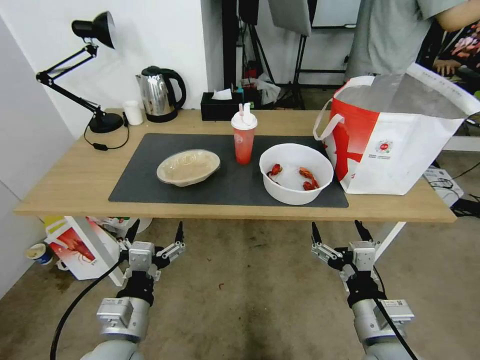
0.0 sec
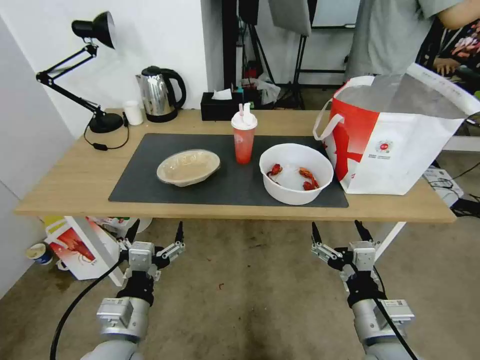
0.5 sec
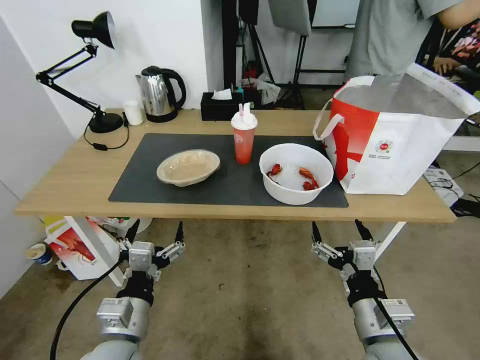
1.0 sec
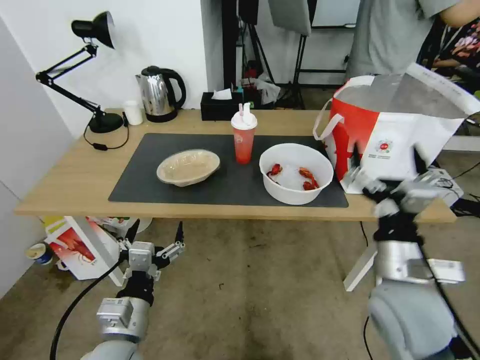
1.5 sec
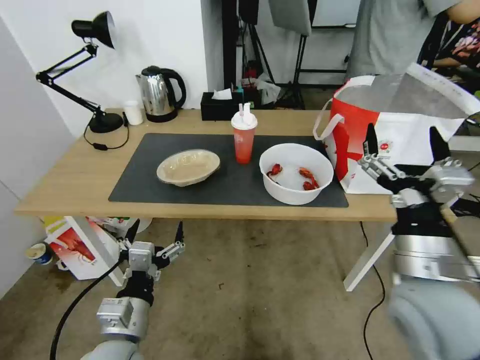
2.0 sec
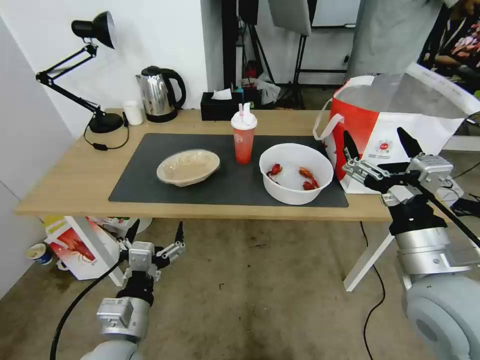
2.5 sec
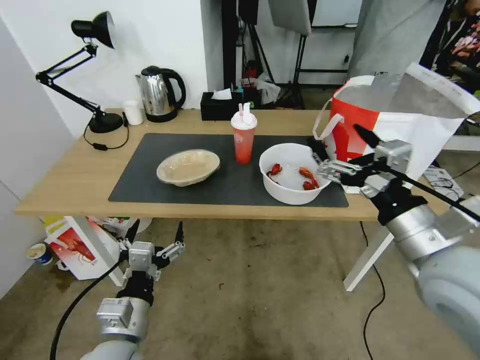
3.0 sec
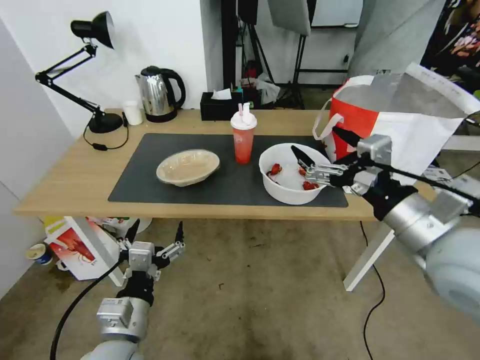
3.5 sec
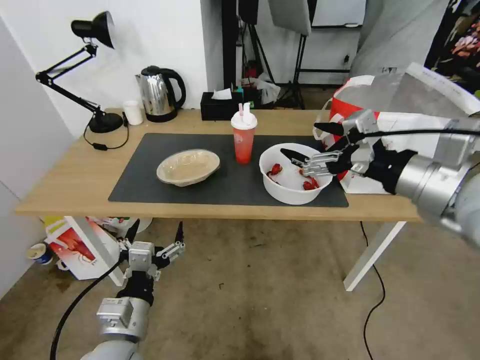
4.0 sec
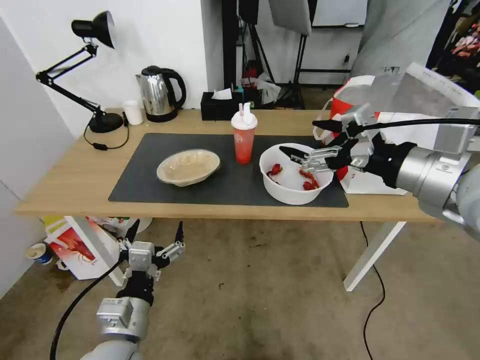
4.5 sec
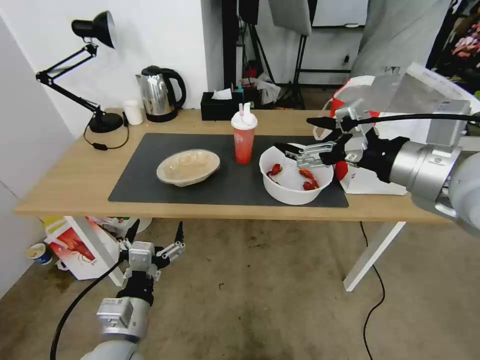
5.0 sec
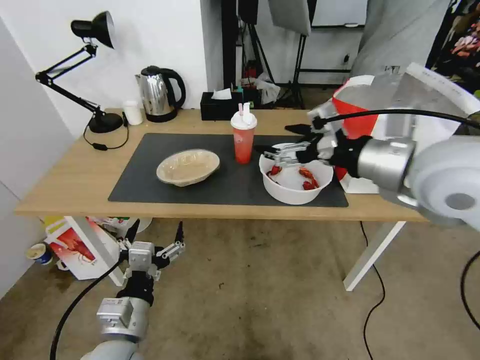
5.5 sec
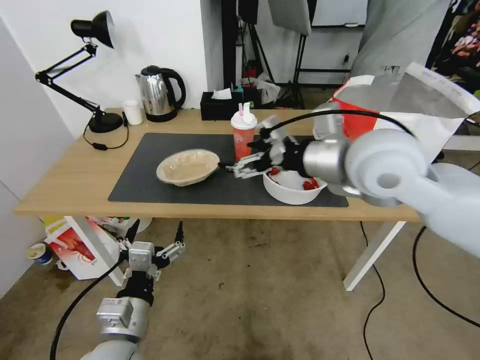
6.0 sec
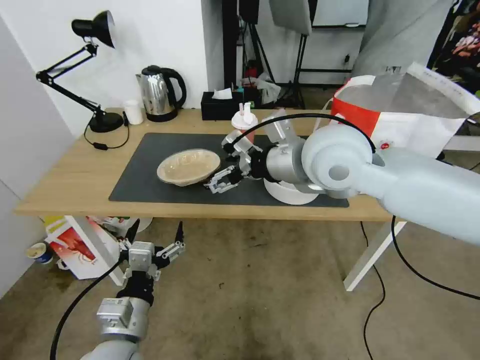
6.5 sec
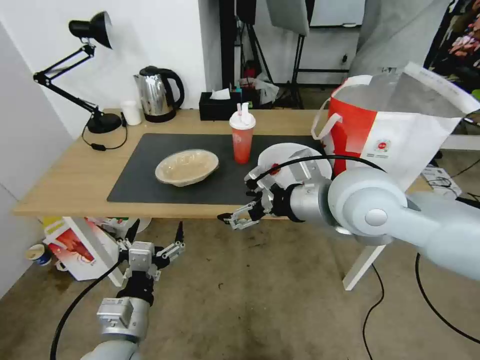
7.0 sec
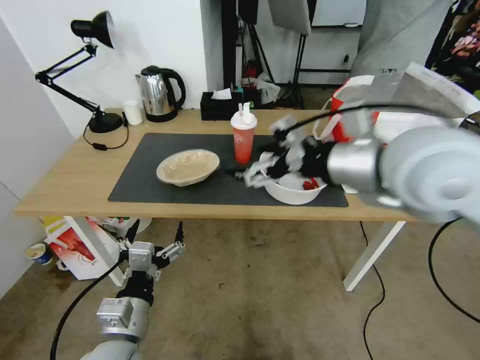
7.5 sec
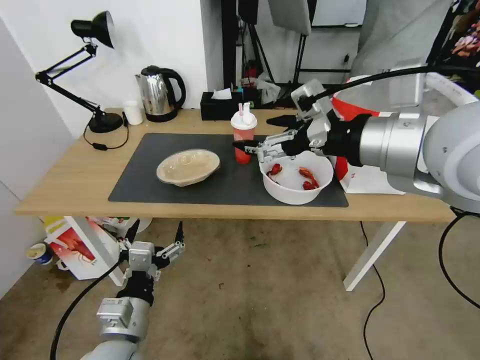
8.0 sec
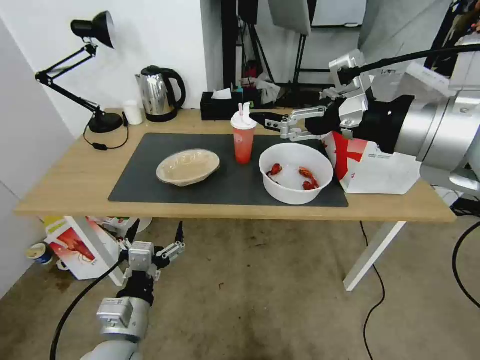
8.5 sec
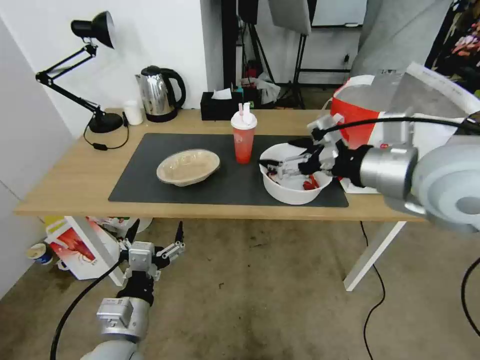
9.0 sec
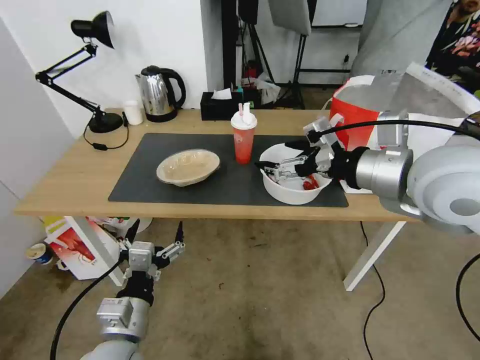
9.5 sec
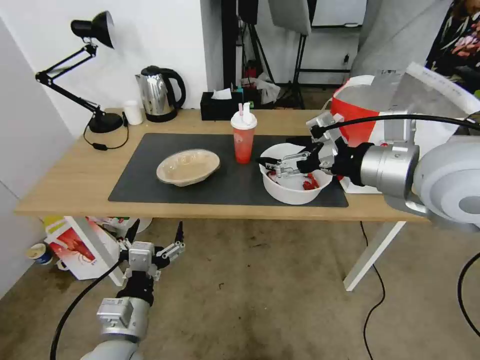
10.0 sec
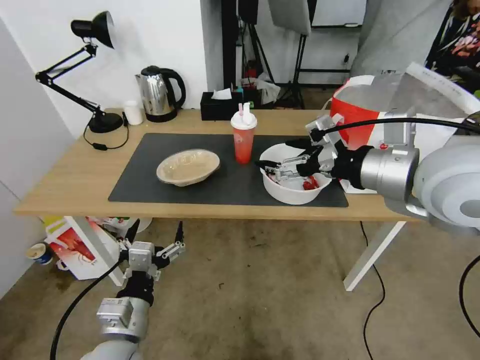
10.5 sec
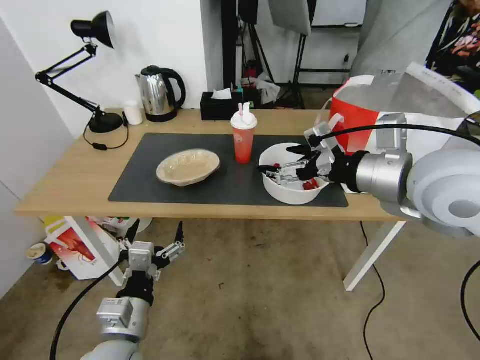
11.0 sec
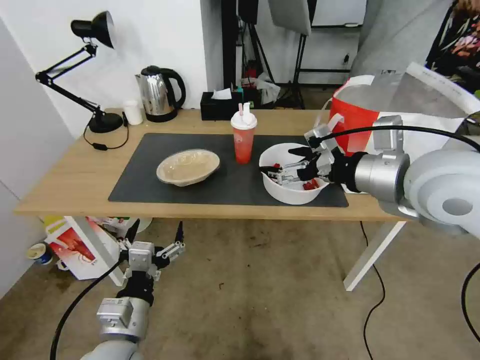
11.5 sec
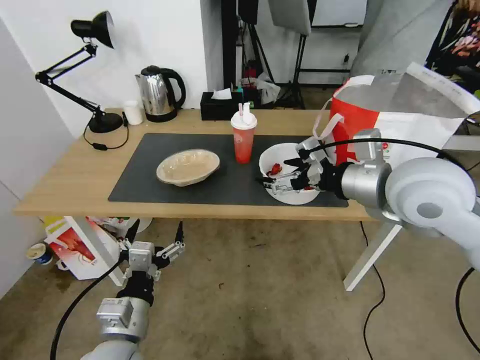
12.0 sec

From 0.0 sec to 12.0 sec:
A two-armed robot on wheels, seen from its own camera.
Task of the whole recording: Pick up the trash from the table and place it into the takeout bag.
From 2.0 sec to 4.0 sec: The right gripper heads upward and forward, covering approximately 15 cm.
From 4.0 sec to 6.0 sec: The right gripper is displaced to the left and forward by approximately 15 cm.
From 6.0 sec to 8.0 sec: The right gripper goes about 10 cm upward and backward.
From 8.0 sec to 10.0 sec: The right gripper shifts about 5 cm downward.
From 10.0 sec to 12.0 sec: The right gripper moves roughly 5 cm.

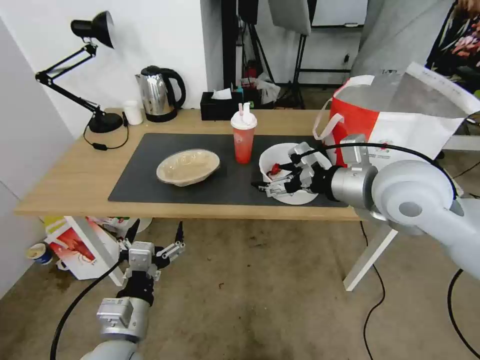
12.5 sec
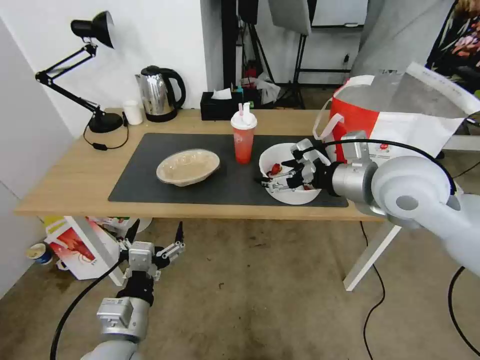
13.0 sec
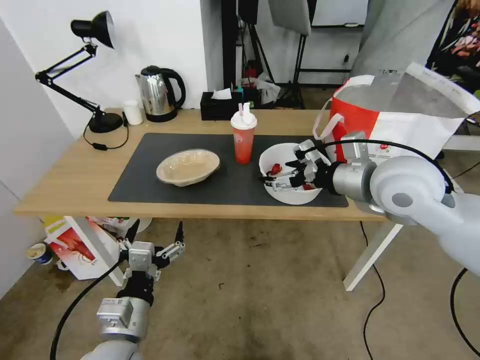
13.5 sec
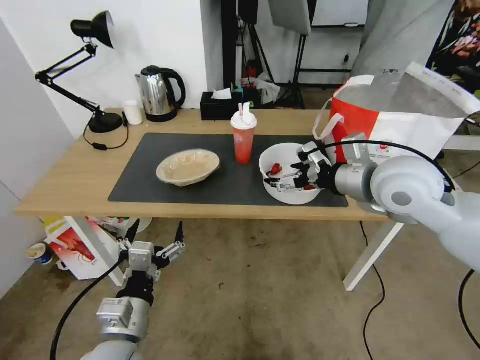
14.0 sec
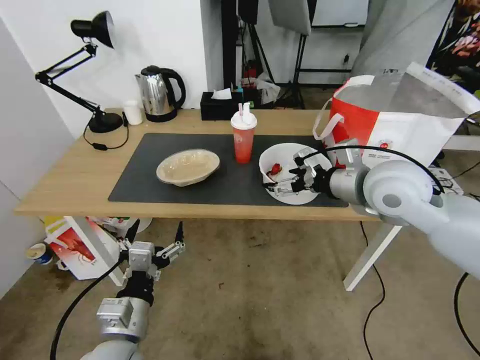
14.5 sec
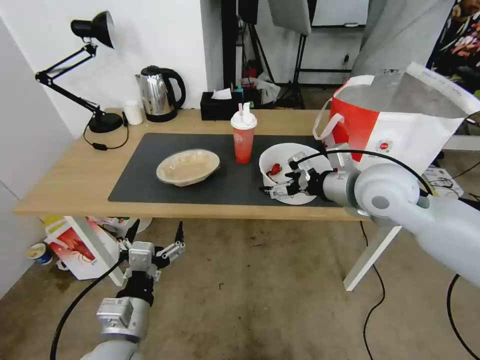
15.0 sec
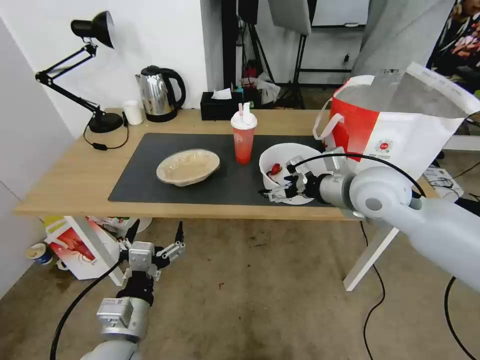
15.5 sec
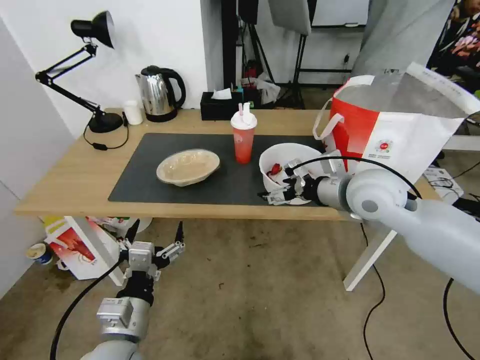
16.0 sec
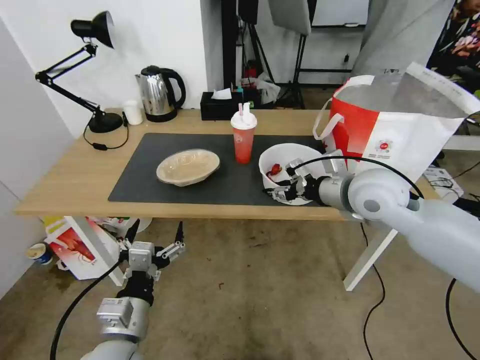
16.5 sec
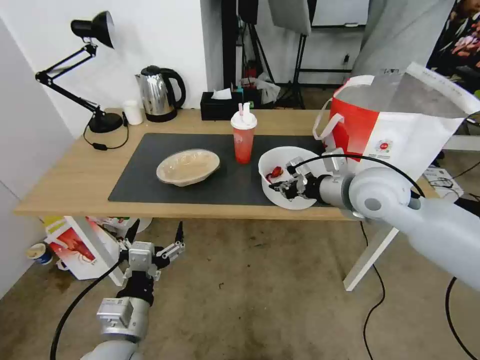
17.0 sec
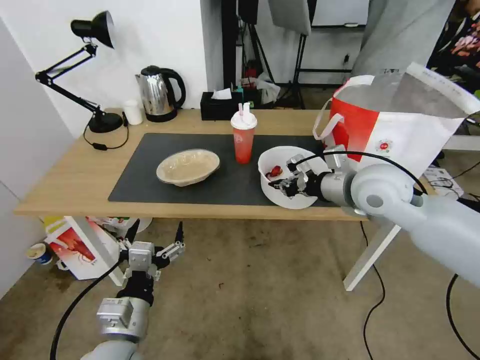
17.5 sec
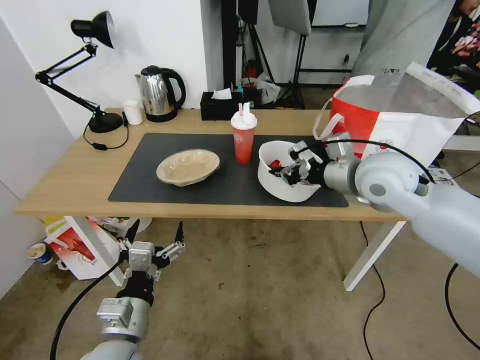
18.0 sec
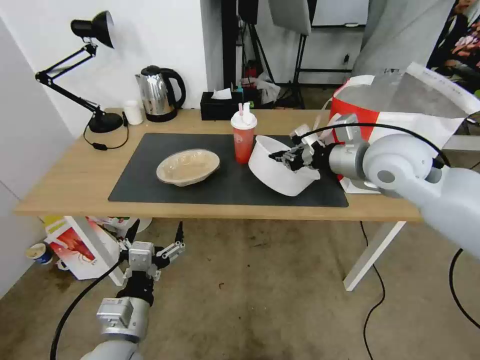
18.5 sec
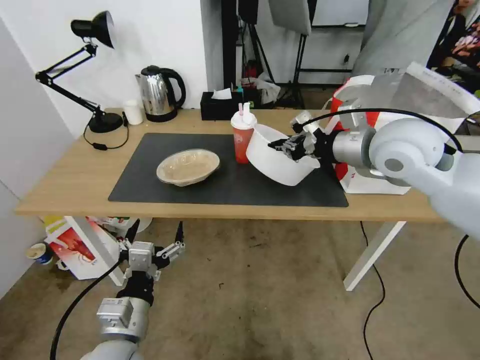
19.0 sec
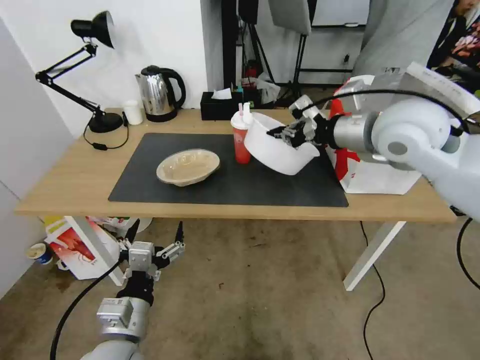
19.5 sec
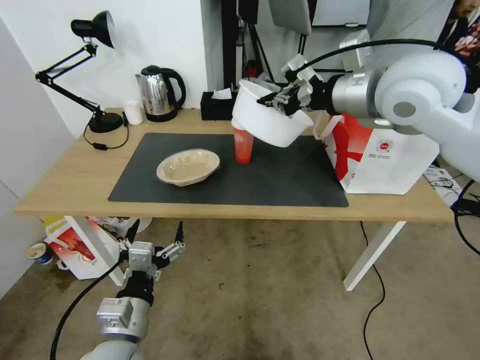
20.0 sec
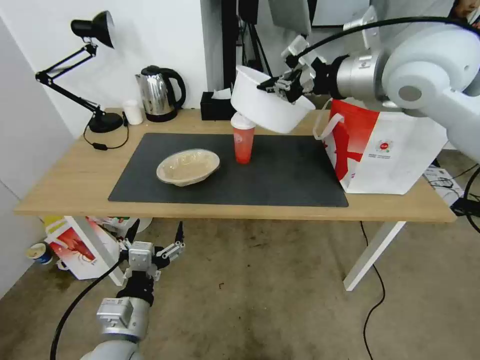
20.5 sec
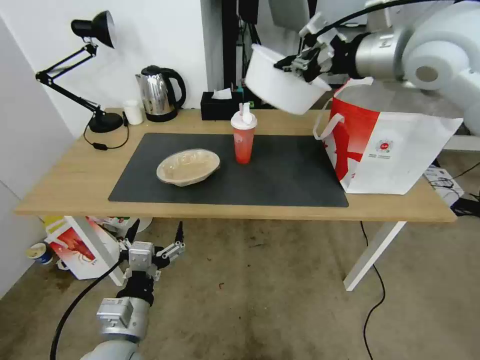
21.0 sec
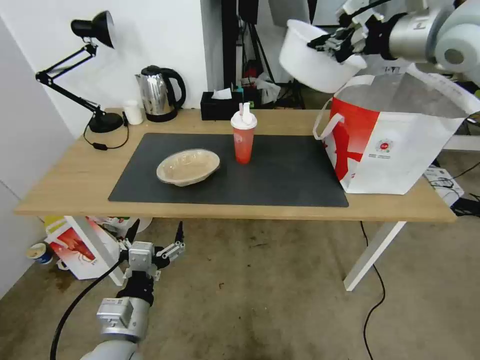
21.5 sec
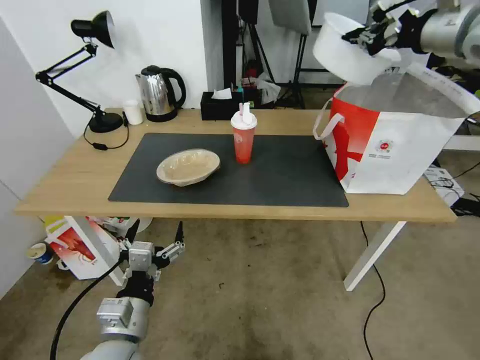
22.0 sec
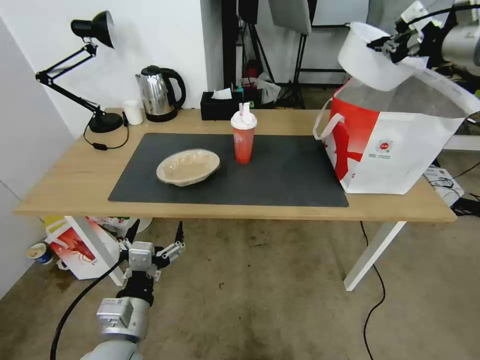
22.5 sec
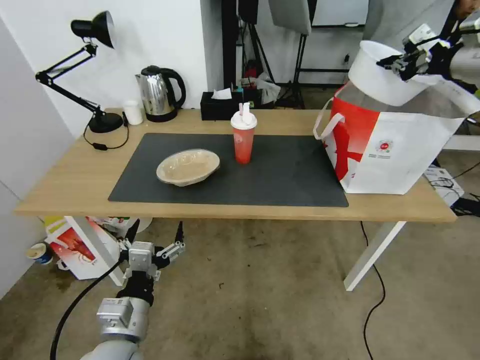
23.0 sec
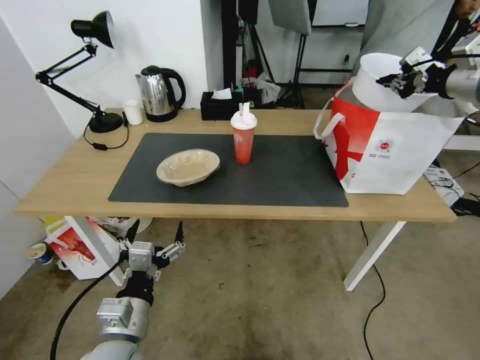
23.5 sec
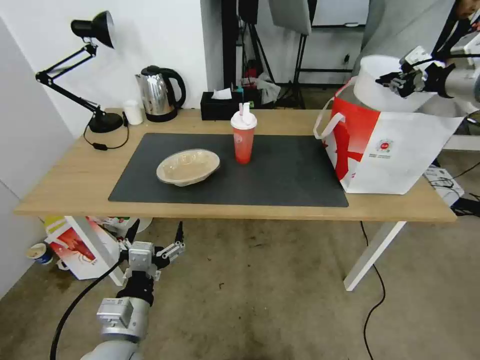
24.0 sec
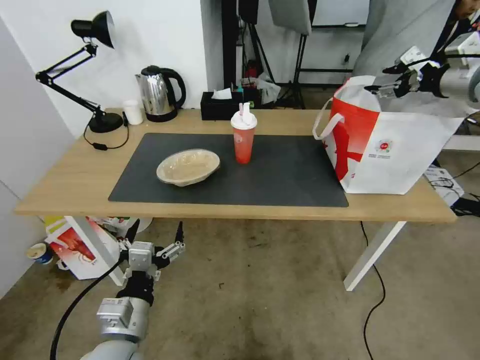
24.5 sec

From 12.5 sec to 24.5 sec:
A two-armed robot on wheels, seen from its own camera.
Task of the whole recording: Pick up the trash from the table and place it into the takeout bag.
From 12.5 sec to 14.5 sec: There are only small adjustments of the grippers.
From 14.5 sec to 16.5 sec: The right gripper closes up.
From 16.5 sec to 18.5 sec: The right gripper shifts approximately 5 cm upward, and closes its fingers.
From 18.5 sec to 20.5 sec: The right gripper moves upward, about 15 cm.
From 20.5 sec to 22.5 sec: The right gripper shifts about 20 cm to the right.
From 22.5 sec to 24.5 sec: The right gripper moves downward, approximately 5 cm, and opens.

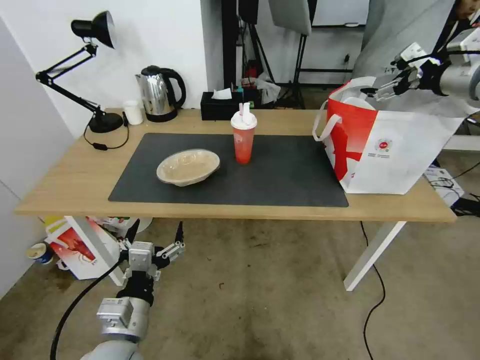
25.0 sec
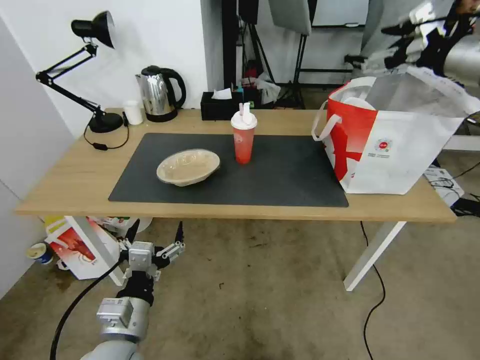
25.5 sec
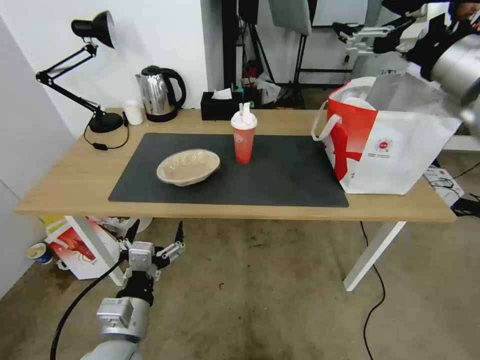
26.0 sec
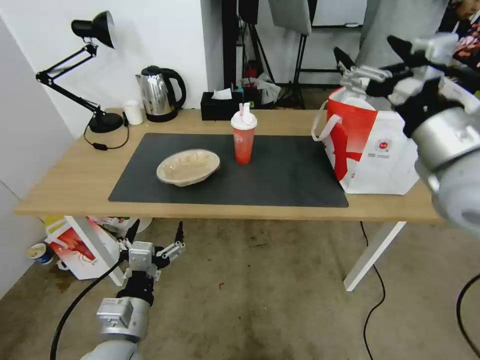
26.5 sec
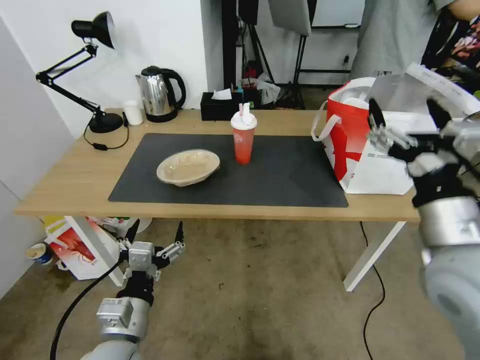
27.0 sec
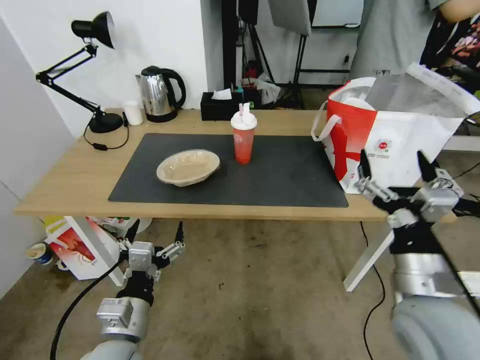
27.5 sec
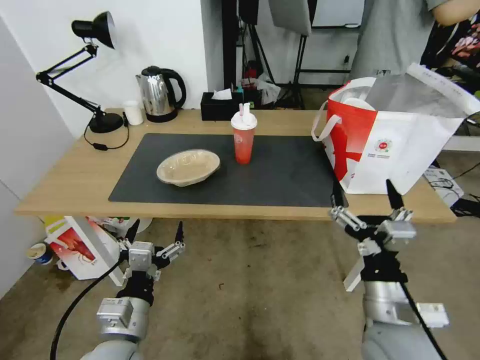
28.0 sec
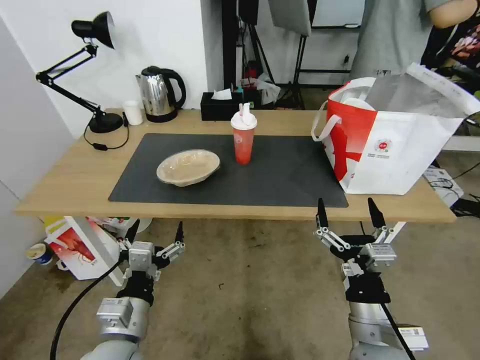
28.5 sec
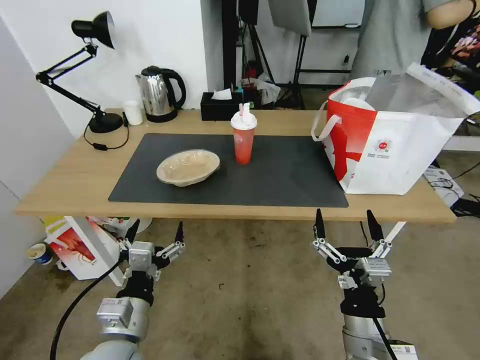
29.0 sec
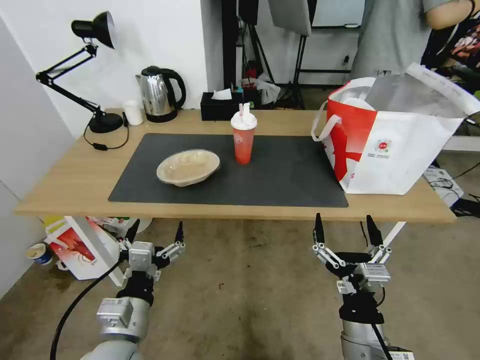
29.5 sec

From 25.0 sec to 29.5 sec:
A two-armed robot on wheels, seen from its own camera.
Task of the whole recording: Pick up the trash from the table and place it into the takeout bag.
From 25.0 sec to 27.0 sec: The right gripper travels backward, to the left and downward by some 35 cm.
From 27.0 sec to 29.5 sec: The right gripper goes roughly 25 cm downward, backward and to the left.
